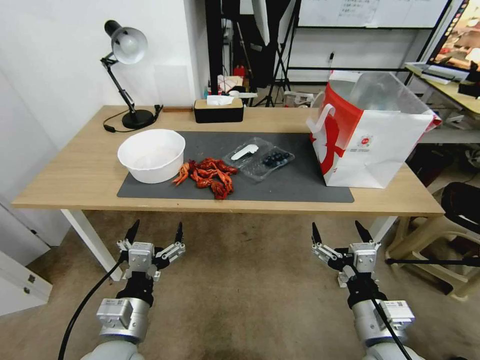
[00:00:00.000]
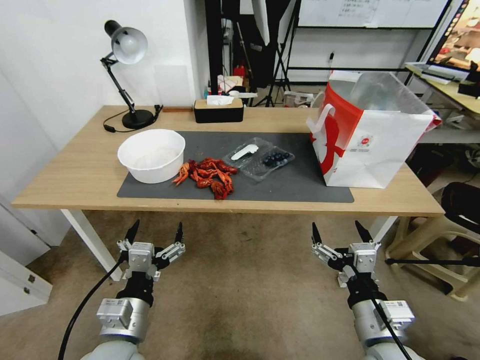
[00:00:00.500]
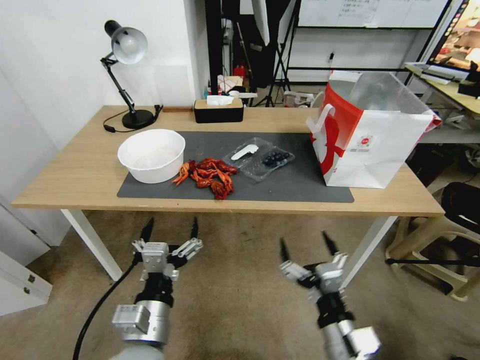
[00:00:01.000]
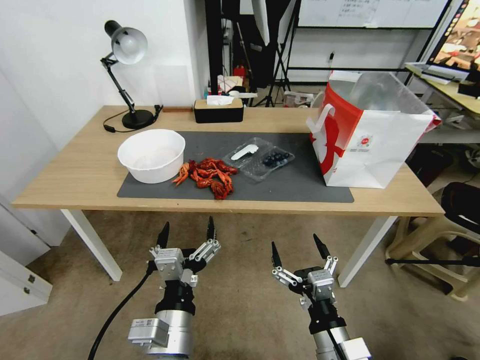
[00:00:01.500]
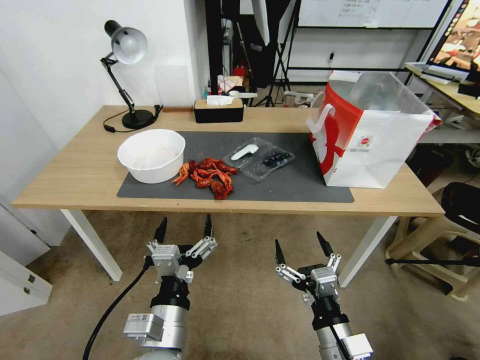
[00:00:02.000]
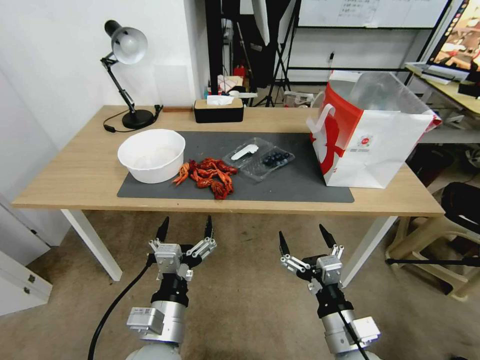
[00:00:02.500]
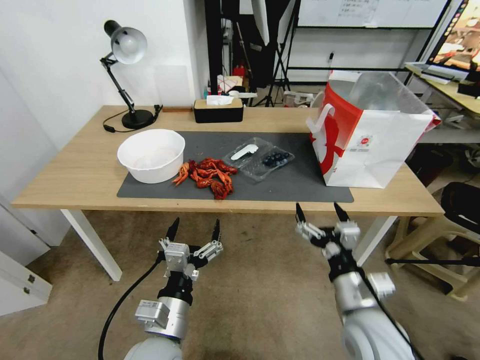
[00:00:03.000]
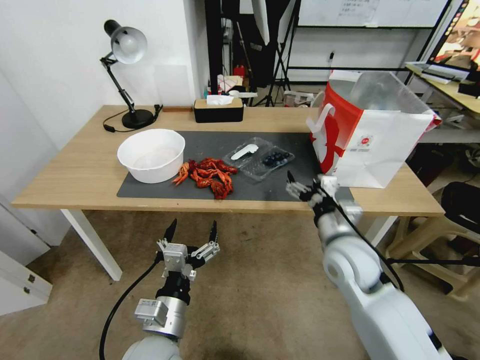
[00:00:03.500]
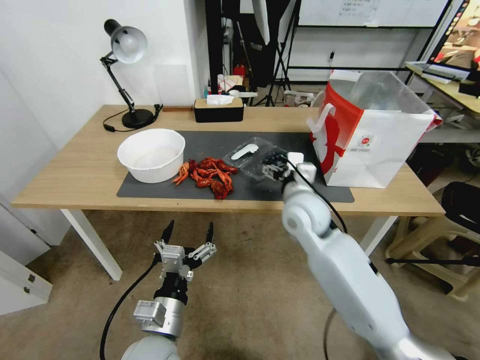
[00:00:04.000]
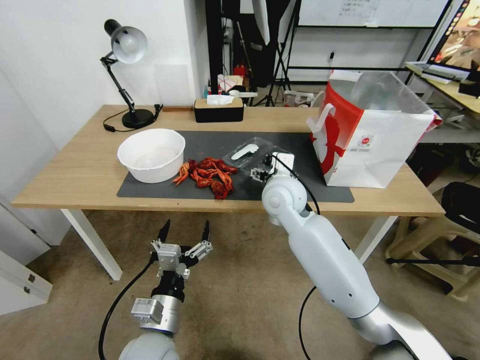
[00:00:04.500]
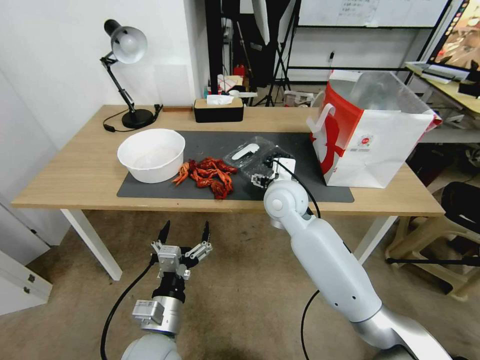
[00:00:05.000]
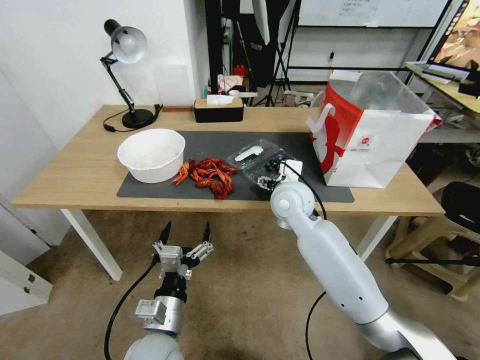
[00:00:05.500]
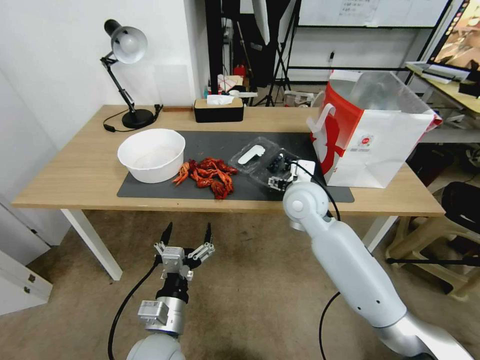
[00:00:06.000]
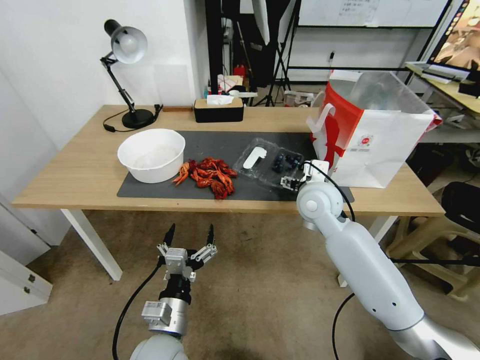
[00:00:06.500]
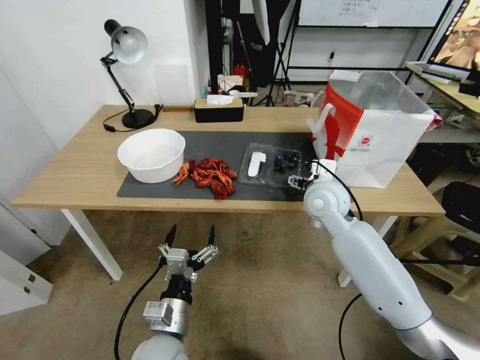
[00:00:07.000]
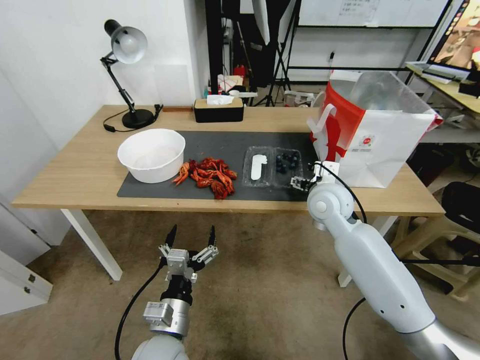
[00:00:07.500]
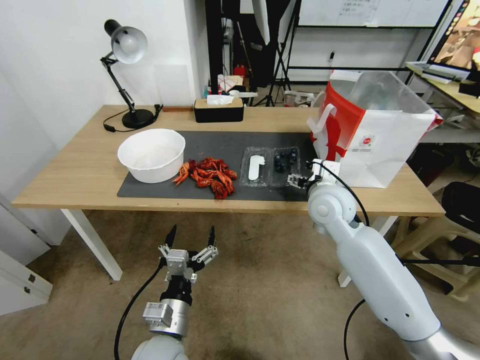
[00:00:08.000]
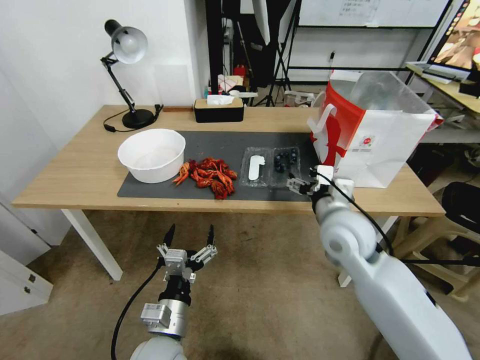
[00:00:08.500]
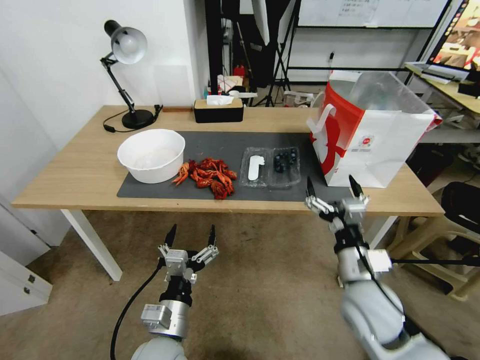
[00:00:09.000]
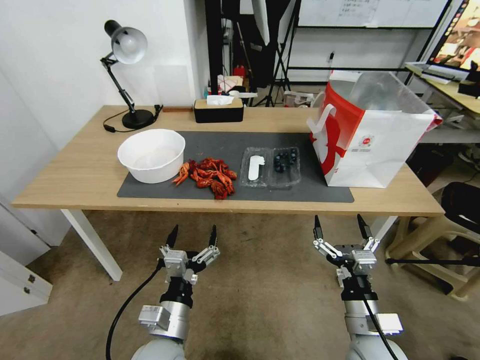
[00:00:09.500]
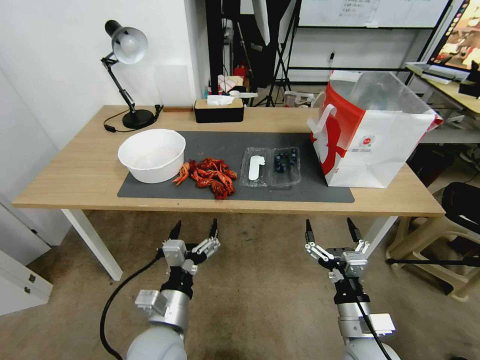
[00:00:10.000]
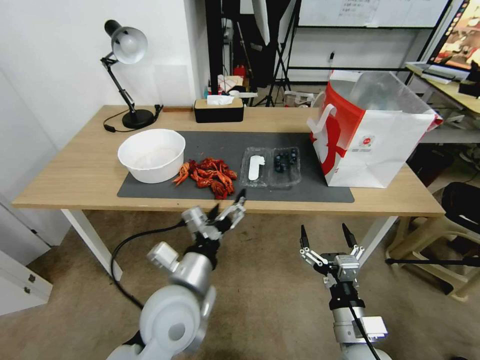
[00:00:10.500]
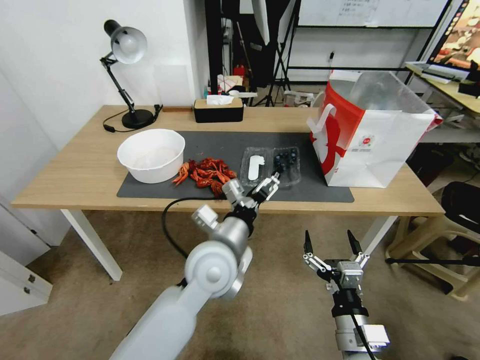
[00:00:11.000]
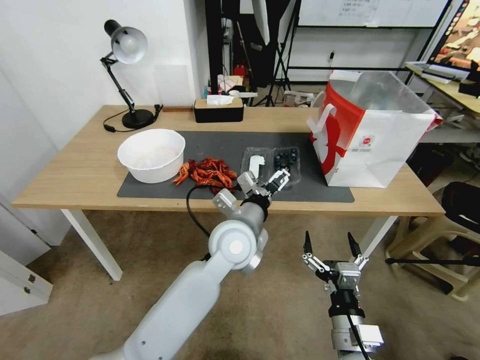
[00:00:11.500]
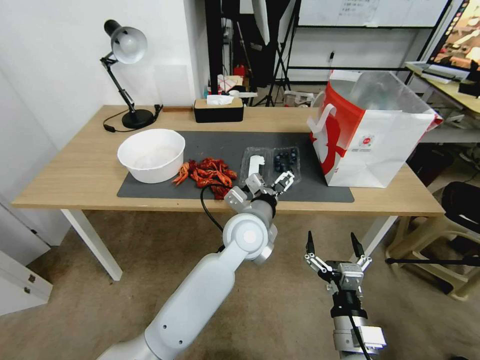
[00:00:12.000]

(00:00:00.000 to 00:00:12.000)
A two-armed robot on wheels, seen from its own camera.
Task of the whole recording: Close the takeout container lid, then place the container into the takeout bag.
00:00:02.000 - 00:00:04.000: The left gripper heads downward, covering roughly 5 cm. Meanwhile the right gripper is displaced forward and upward by approximately 30 cm.
00:00:04.000 - 00:00:06.000: The grippers stay close to where they were, moving slightly.
00:00:06.000 - 00:00:08.000: The right gripper moves to the right, approximately 5 cm.
00:00:08.000 - 00:00:10.000: The right gripper moves backward and downward, approximately 30 cm.
00:00:10.000 - 00:00:12.000: The left gripper heads forward, to the right and upward, covering about 25 cm.

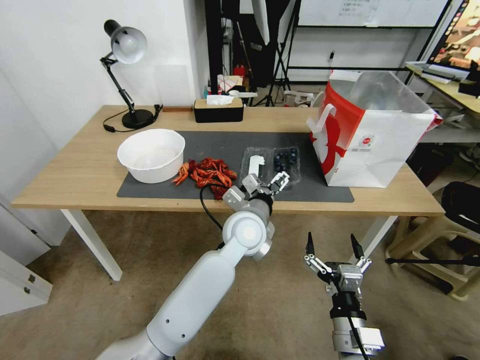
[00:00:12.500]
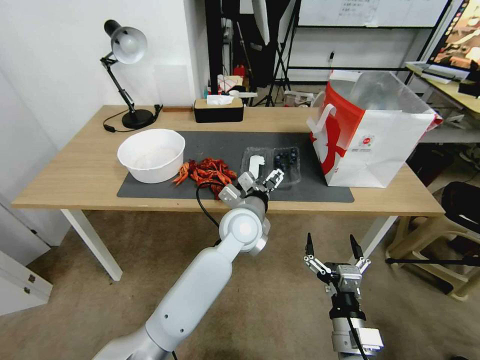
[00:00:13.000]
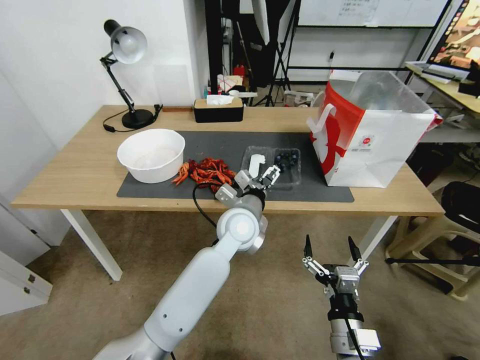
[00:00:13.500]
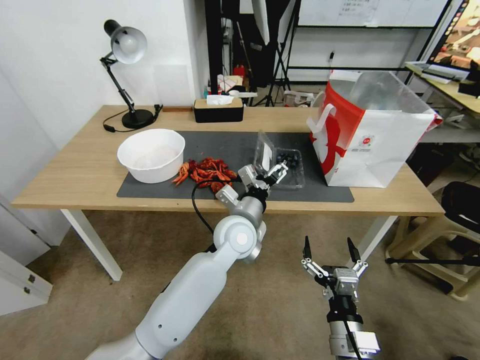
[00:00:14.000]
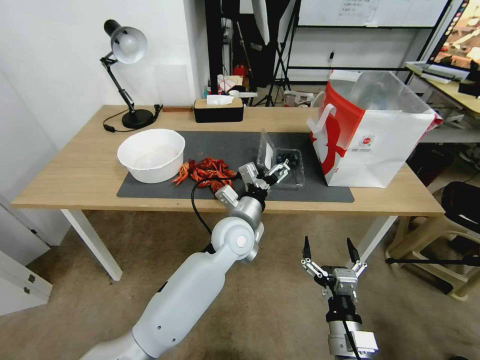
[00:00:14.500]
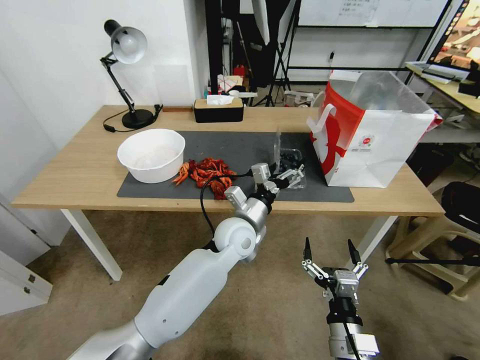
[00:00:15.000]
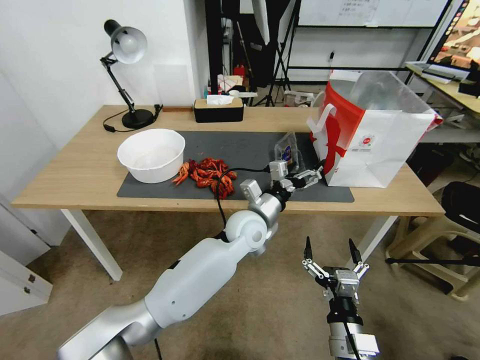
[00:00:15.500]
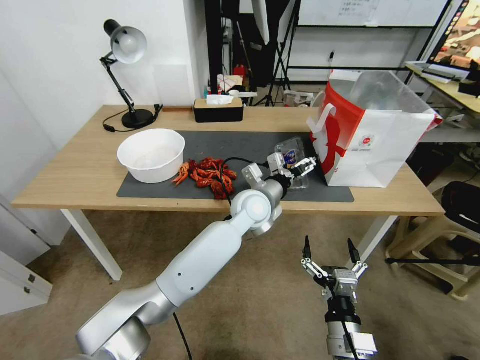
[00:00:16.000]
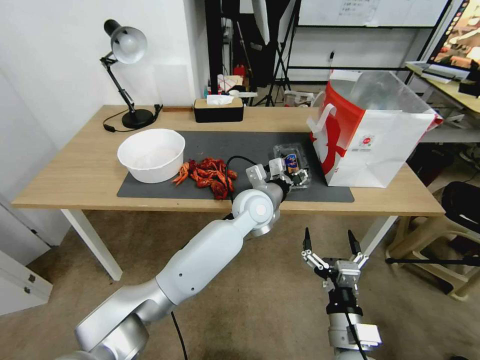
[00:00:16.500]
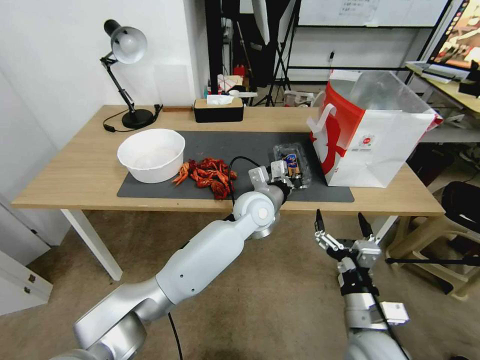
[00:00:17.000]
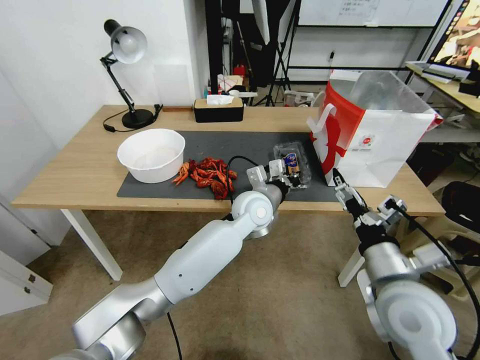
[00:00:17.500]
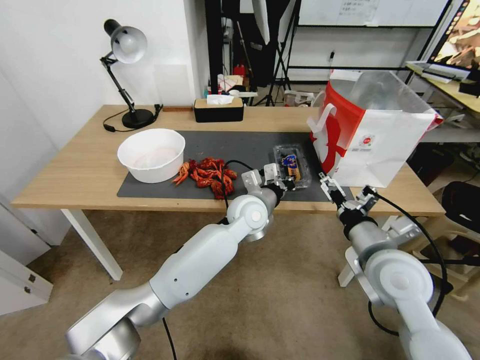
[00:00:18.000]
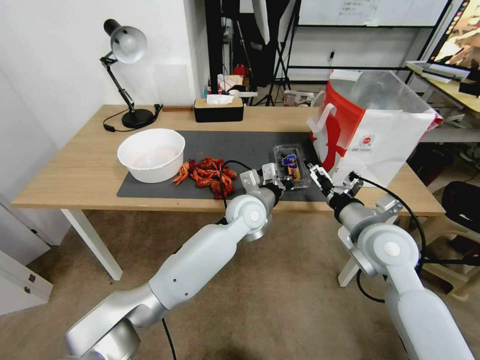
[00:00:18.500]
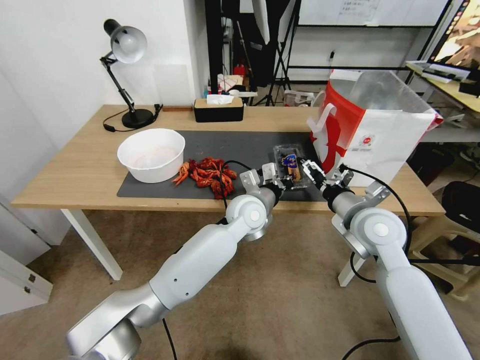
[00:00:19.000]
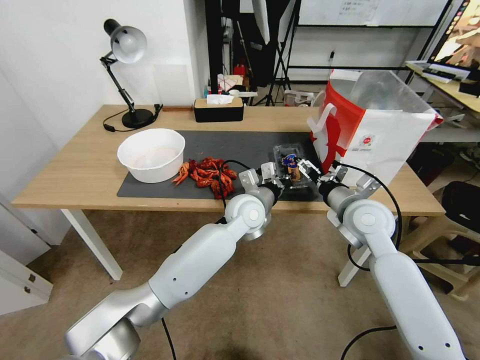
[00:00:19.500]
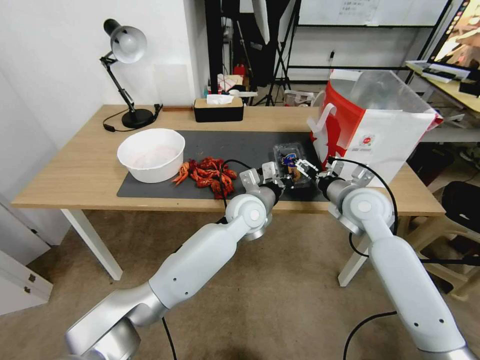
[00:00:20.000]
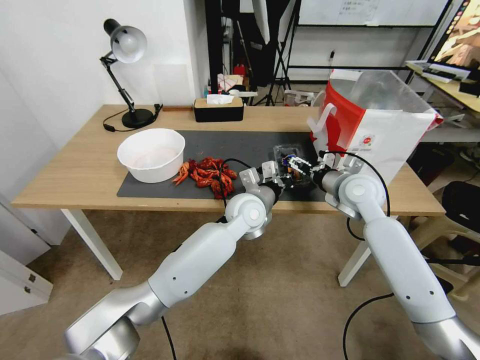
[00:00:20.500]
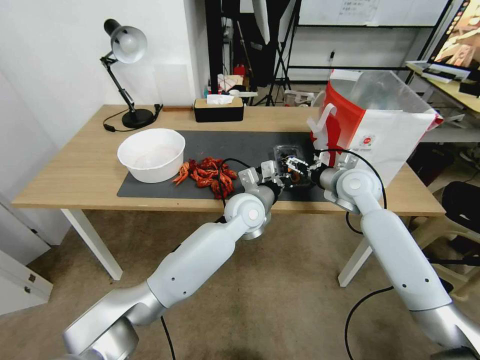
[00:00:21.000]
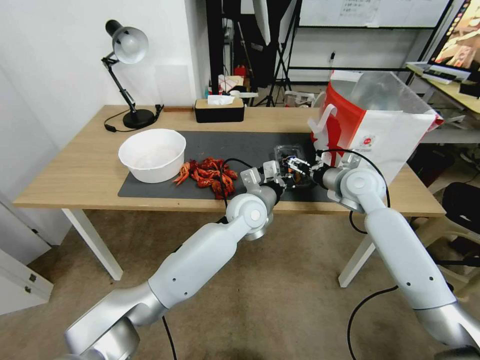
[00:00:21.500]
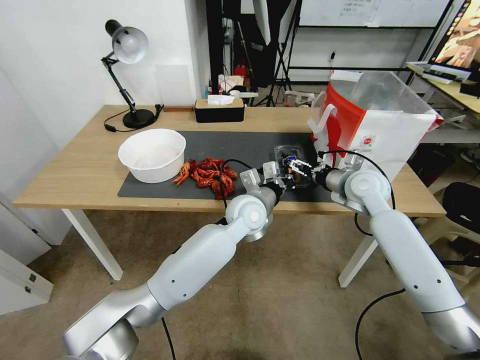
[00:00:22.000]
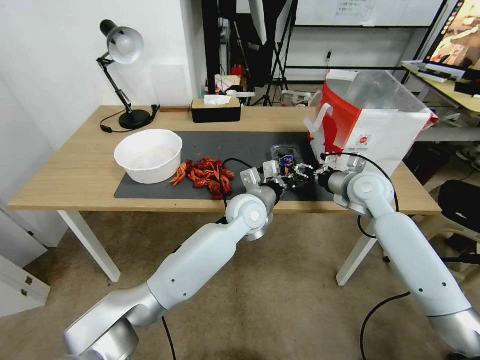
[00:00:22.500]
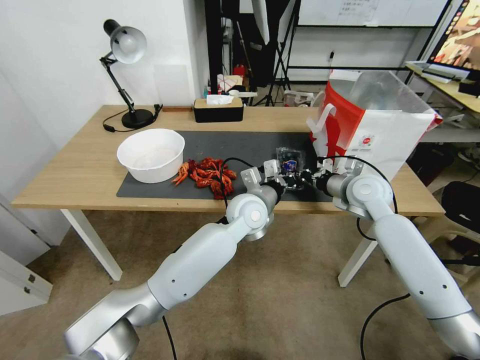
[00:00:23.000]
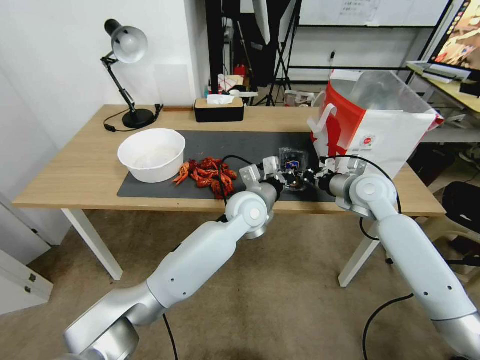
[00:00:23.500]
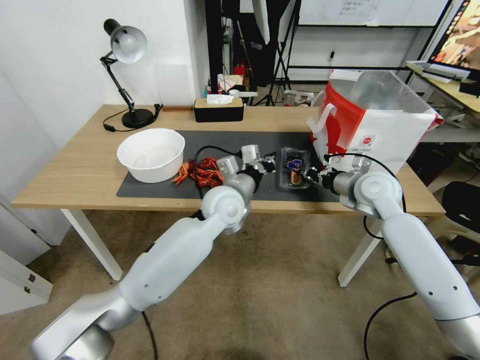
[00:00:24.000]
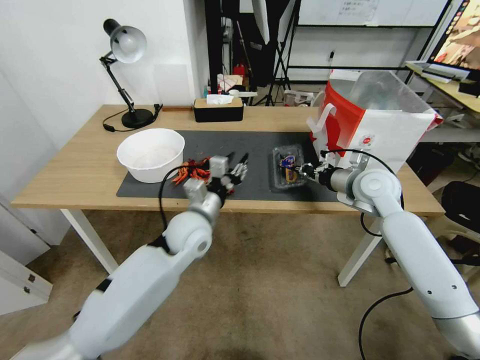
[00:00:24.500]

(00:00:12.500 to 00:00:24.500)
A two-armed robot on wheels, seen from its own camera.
Task of the whole recording: Close the takeout container lid, then place the container into the takeout bag.
00:00:14.500 - 00:00:16.500: The left gripper is displaced forward by about 5 cm, and closes.
00:00:16.500 - 00:00:18.500: The left gripper closes up, while the right gripper shifts approximately 25 cm forward and upward.
00:00:18.500 - 00:00:20.500: The right gripper is displaced forward by about 15 cm.
00:00:20.500 - 00:00:22.500: The right gripper closes.
00:00:22.500 - 00:00:24.500: The right gripper closes up; the left gripper goes some 15 cm to the left and backward, and opens.

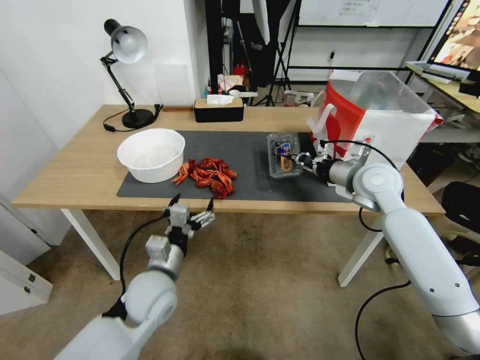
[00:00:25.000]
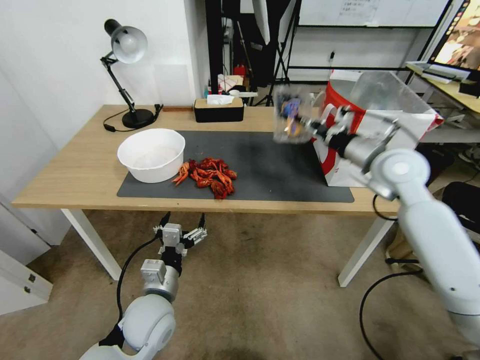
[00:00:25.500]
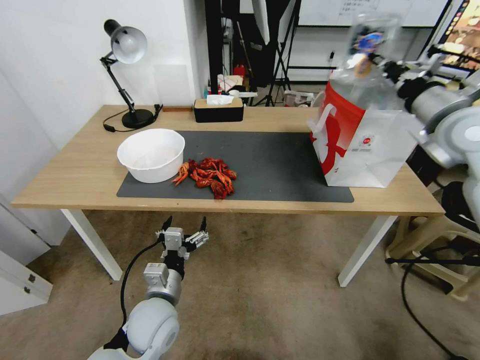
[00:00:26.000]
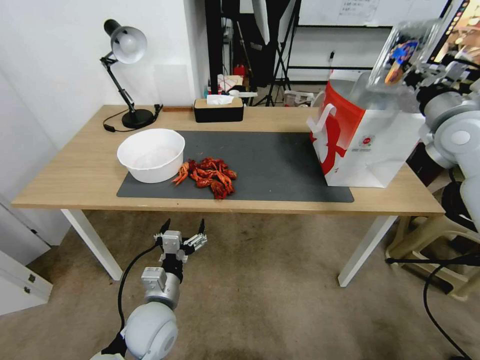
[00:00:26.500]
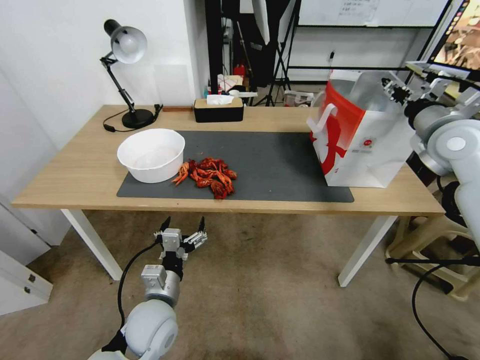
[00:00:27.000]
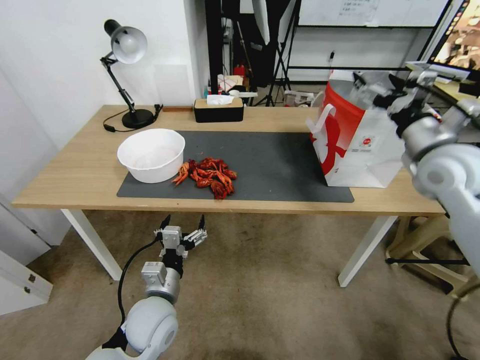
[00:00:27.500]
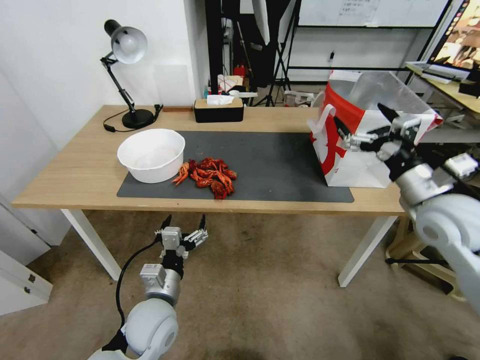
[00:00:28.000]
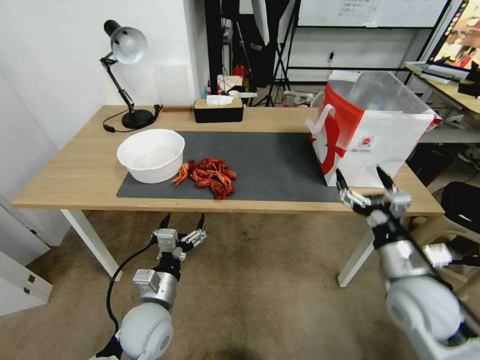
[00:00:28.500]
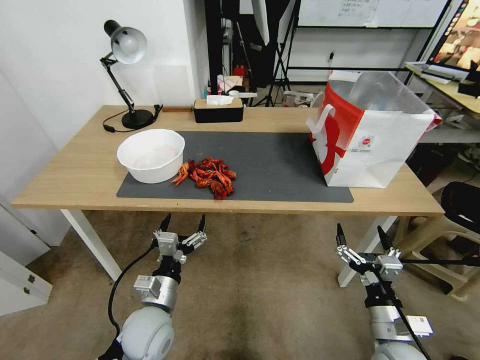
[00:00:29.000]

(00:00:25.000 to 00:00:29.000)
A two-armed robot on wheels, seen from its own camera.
Task of the whole recording: Close the takeout container lid, then place the container into the takeout bag.
00:00:25.000 - 00:00:27.000: The left gripper moves roughly 5 cm; the right gripper goes about 15 cm upward and to the right, and opens.
00:00:27.000 - 00:00:29.000: The right gripper travels downward and backward by approximately 40 cm, and opens up.
